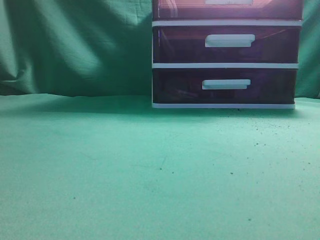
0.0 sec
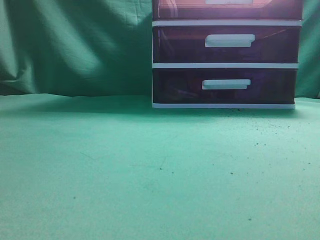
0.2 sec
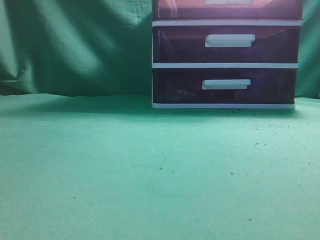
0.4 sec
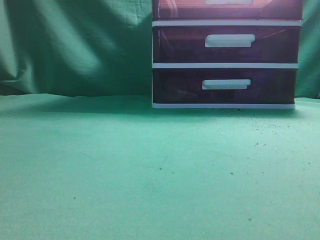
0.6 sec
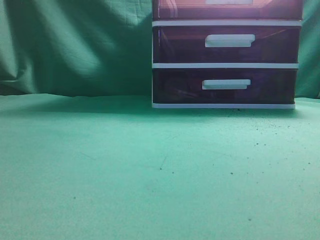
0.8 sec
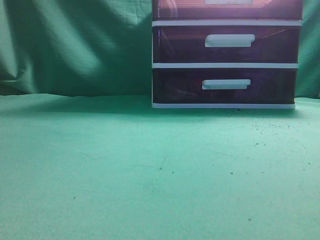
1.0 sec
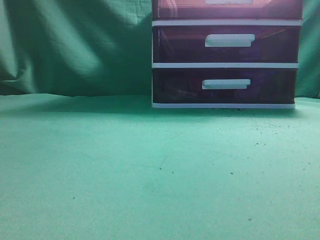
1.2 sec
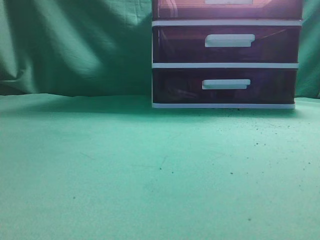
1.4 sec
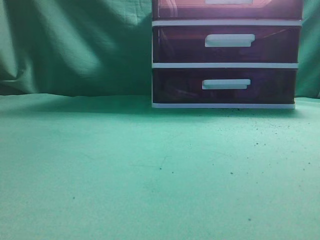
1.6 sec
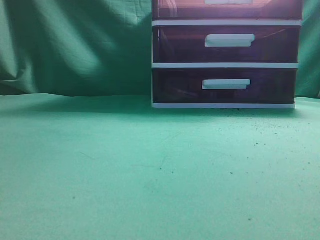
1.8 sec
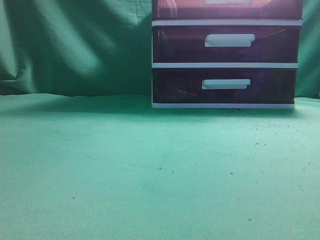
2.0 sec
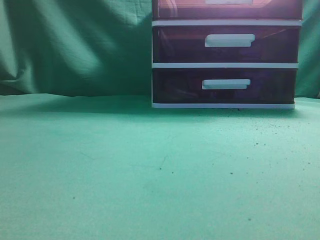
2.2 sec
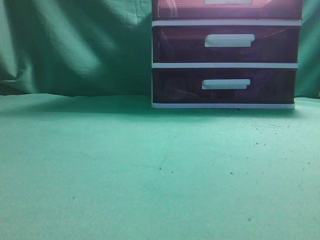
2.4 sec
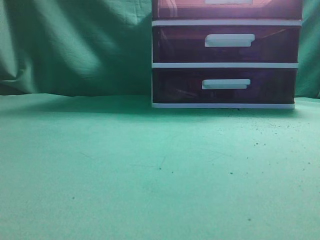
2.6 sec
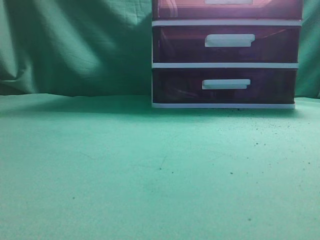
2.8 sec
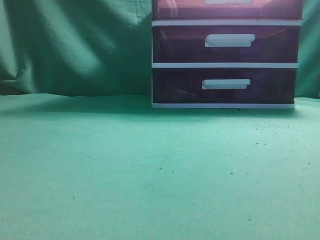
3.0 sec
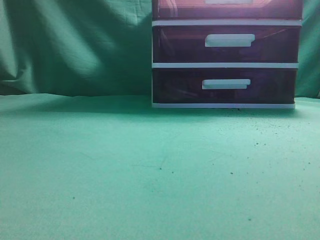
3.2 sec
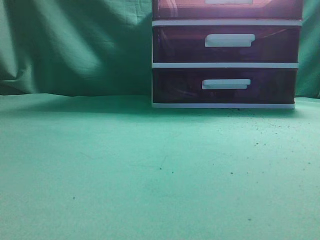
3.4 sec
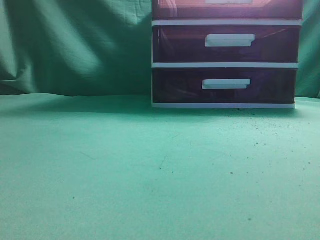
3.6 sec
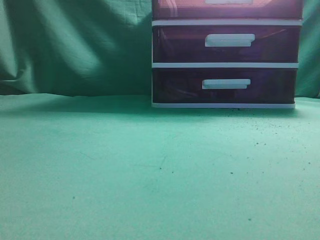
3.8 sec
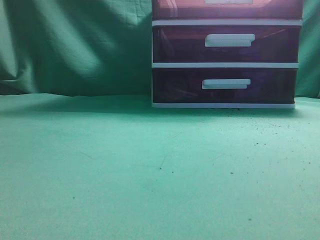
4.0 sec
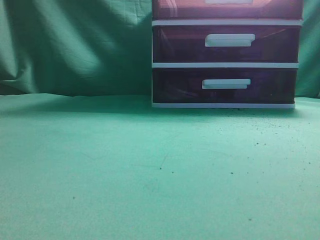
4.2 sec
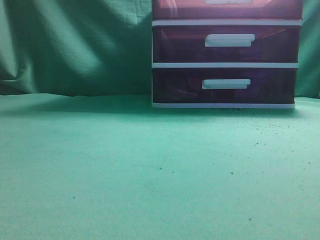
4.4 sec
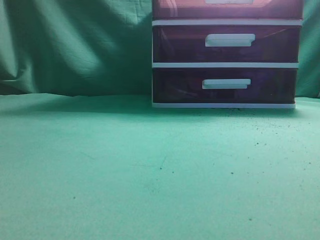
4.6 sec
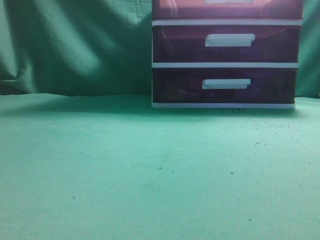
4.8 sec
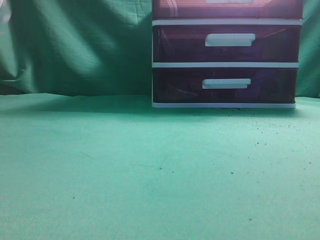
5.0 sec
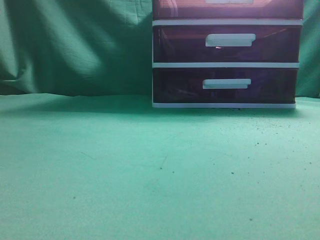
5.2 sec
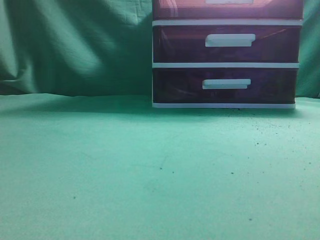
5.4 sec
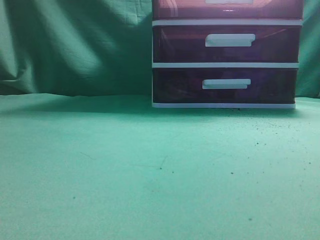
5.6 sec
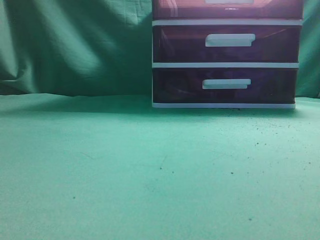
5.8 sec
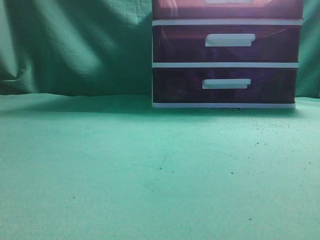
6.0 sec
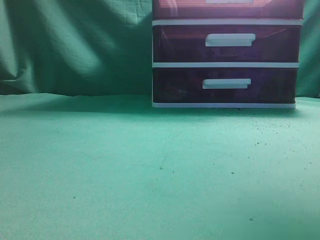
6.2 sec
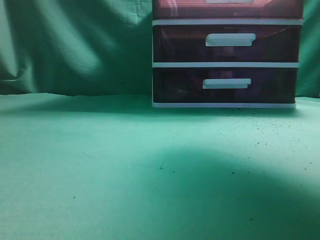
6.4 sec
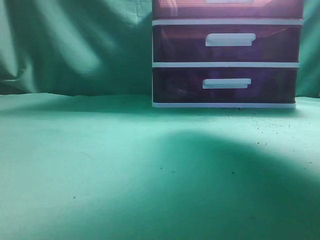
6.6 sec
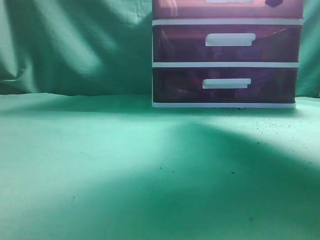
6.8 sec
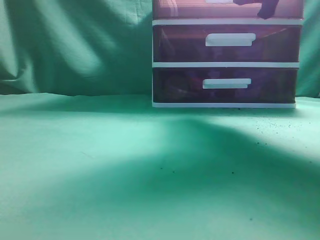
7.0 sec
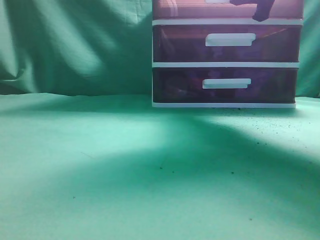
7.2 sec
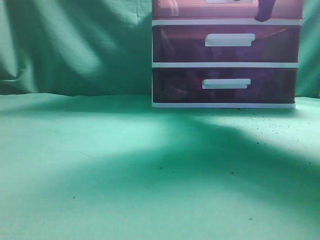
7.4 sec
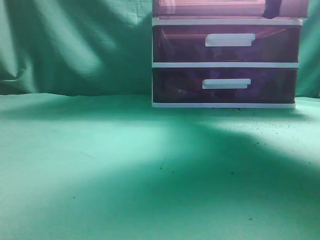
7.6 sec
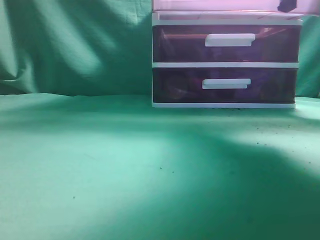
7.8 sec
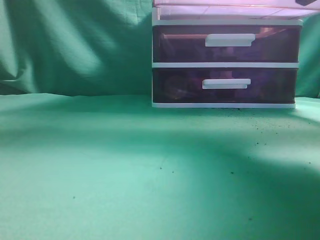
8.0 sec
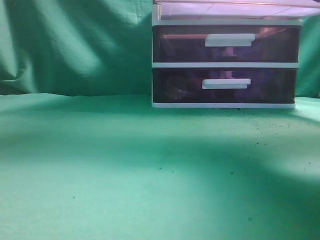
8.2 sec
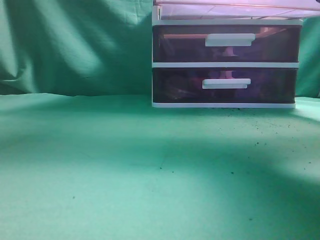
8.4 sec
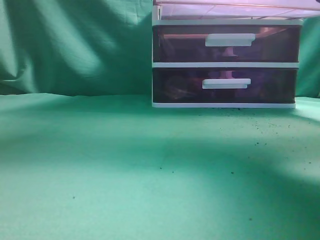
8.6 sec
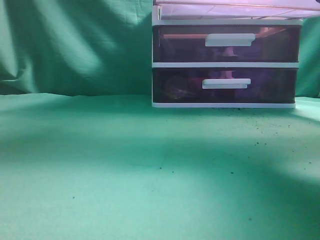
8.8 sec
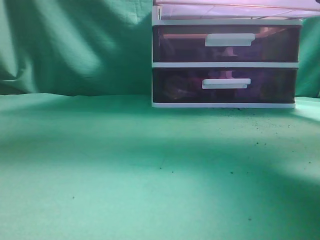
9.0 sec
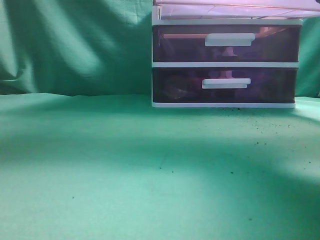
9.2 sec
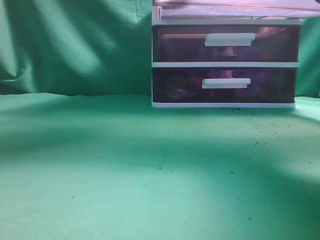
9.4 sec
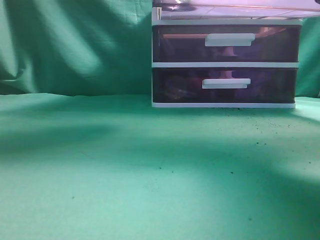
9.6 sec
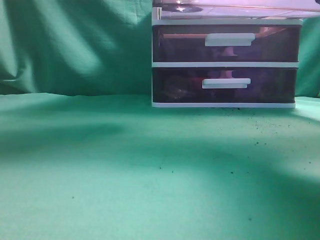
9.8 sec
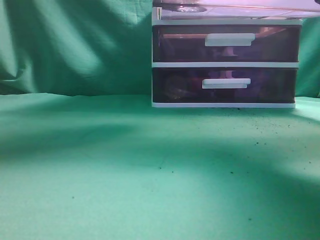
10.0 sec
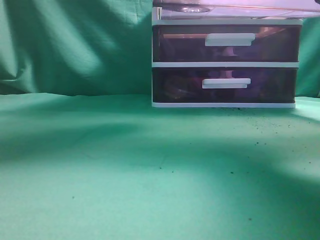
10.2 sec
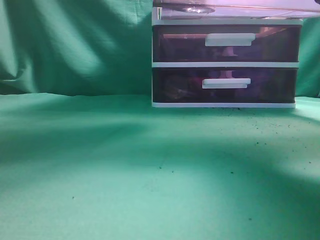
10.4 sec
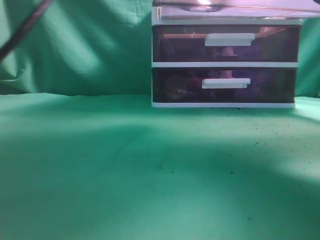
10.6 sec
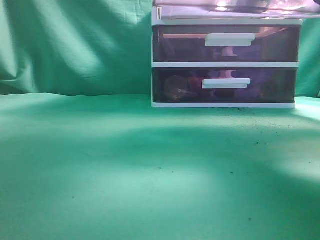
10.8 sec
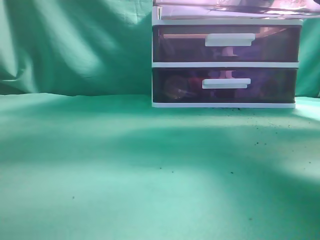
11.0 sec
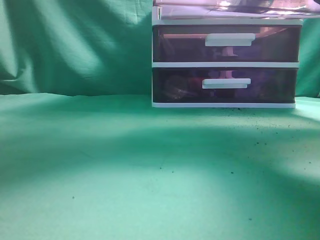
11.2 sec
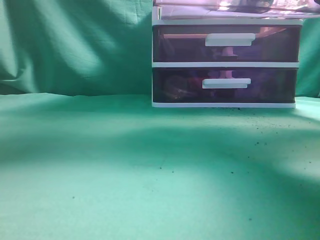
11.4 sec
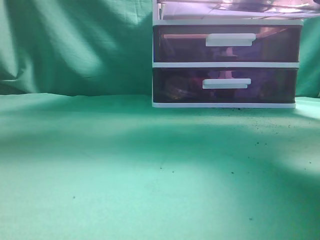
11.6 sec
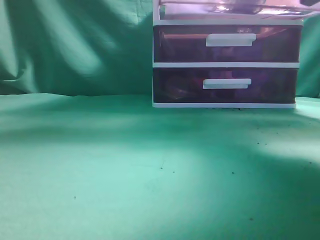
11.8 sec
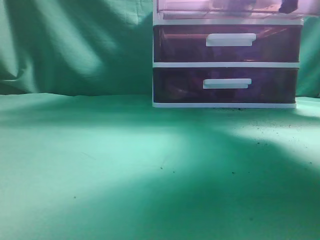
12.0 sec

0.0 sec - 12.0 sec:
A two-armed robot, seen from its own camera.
Task of the whole recording: place the water bottle into the drawer.
Step, 0.0 sec - 8.6 sec: Open the drawer.
Step, 9.0 sec - 11.2 sec: Place the water bottle inside the drawer.
6.0 sec - 7.6 sec: The right gripper travels forward and downward by roughly 10 cm, and opens, then closes again.
7.6 sec - 9.0 sec: The right gripper heads backward, covering roughly 10 cm; the left gripper shifts about 20 cm forward, to the right and upward.
9.0 sec - 10.4 sec: The left gripper goes roughly 20 cm to the right, downward and forward, and opens.
10.4 sec - 12.0 sec: The left gripper moves to the left, upward and backward, some 30 cm, and closes; the right gripper travels forward by some 10 cm.

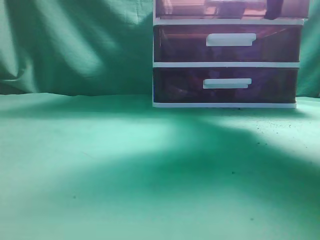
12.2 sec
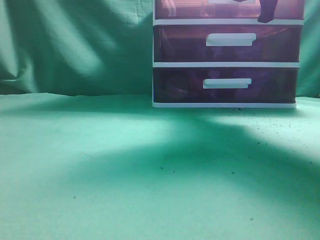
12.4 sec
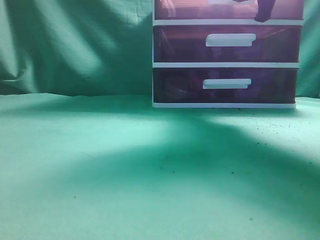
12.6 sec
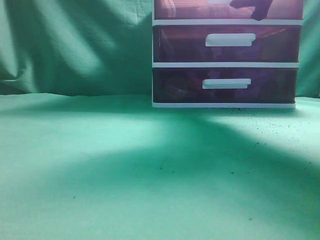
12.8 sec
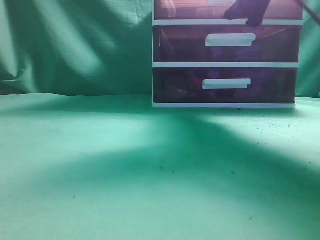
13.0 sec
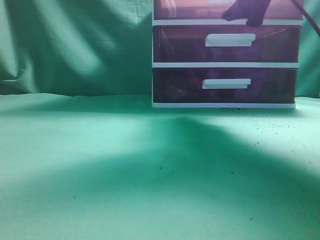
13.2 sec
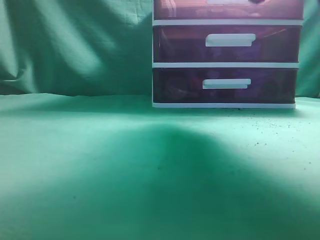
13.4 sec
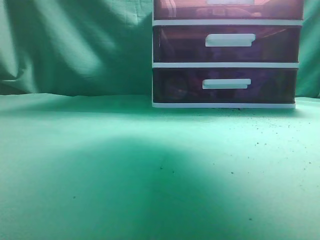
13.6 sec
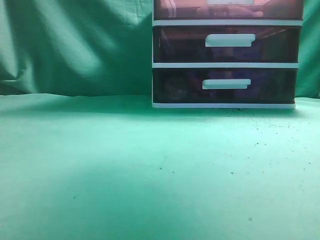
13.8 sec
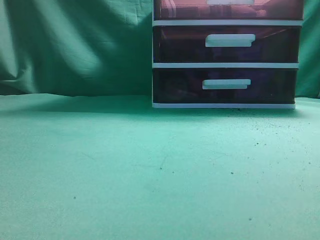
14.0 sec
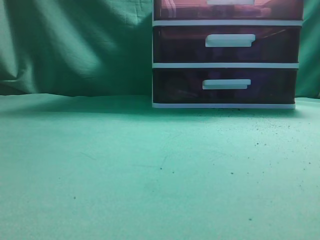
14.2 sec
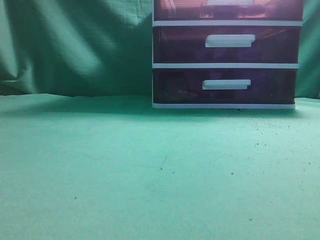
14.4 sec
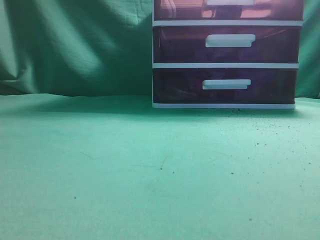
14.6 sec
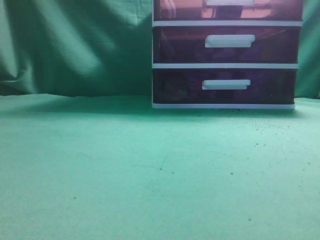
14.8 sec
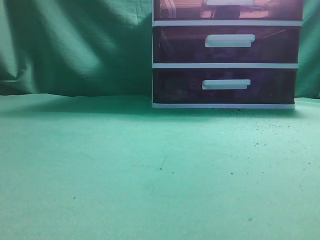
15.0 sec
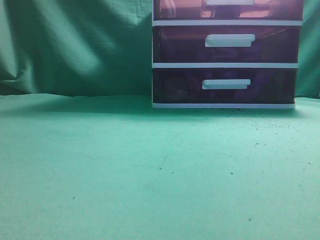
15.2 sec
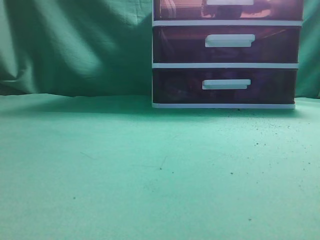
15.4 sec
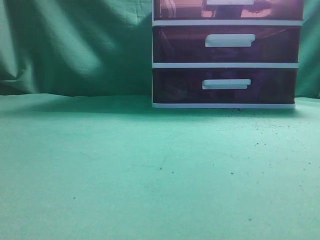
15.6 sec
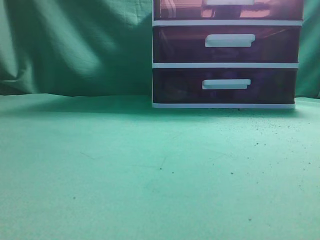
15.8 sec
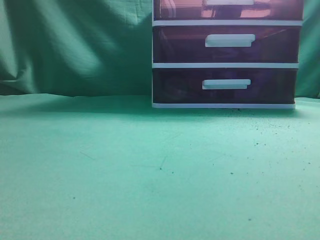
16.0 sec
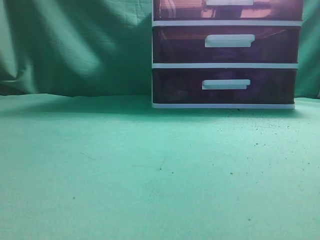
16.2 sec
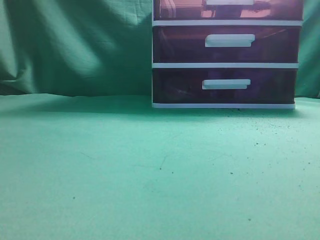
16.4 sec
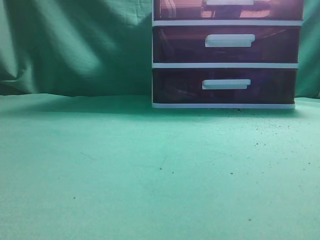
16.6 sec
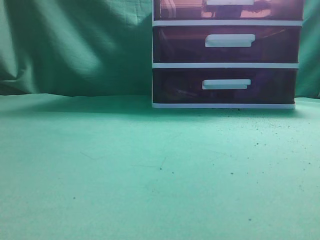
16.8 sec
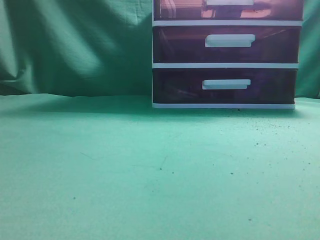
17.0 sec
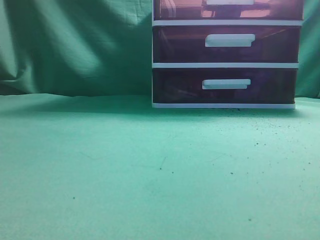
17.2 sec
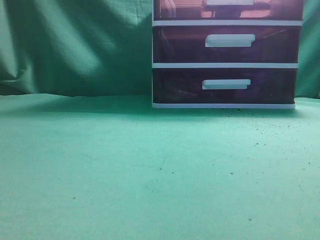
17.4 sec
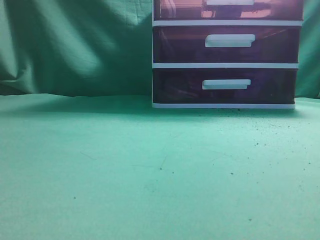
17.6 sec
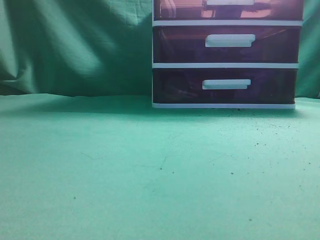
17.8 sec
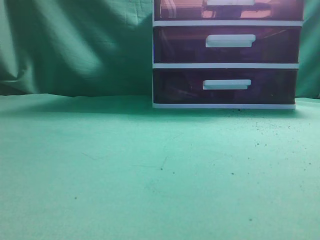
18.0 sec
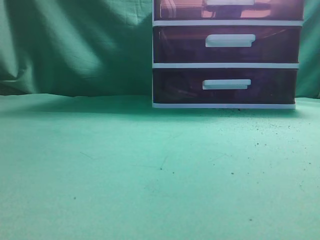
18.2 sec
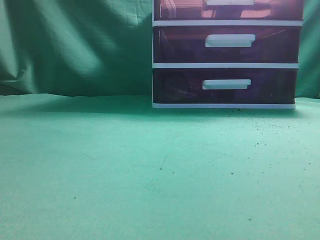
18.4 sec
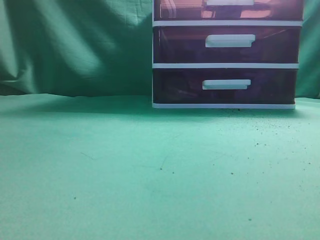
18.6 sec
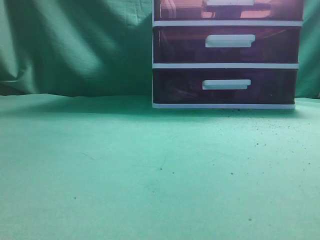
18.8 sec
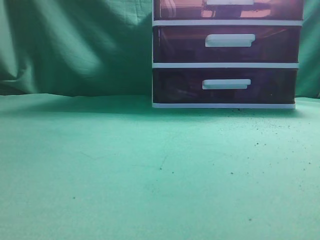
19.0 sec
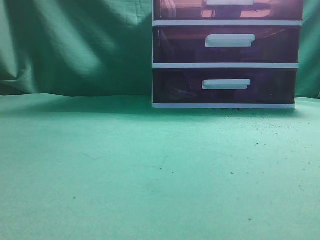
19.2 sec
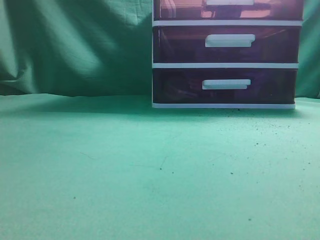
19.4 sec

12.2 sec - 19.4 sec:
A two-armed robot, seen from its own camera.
Task of the whole recording: place the water bottle into the drawer.
Step, 12.2 sec - 13.2 sec: Close the drawer.
12.2 sec - 13.6 sec: The left gripper heads backward, covering approximately 10 cm. The right gripper moves backward and upward, roughly 10 cm, and opens.
13.6 sec - 15.0 sec: The left gripper heads downward and backward, covering about 25 cm, while the right gripper travels backward by about 30 cm, and closes up.
